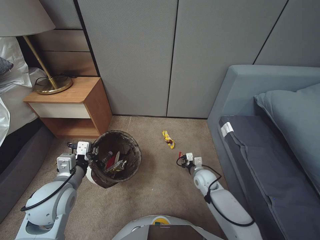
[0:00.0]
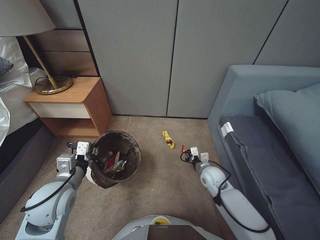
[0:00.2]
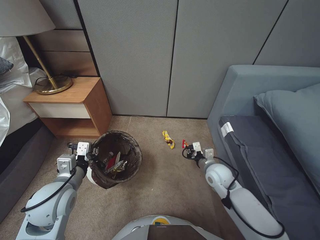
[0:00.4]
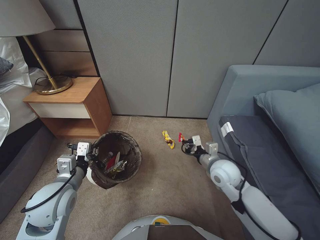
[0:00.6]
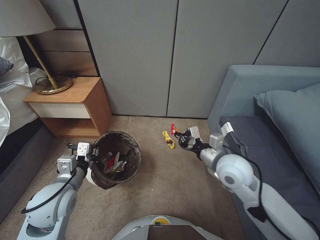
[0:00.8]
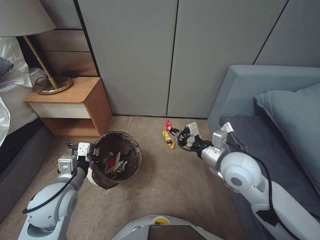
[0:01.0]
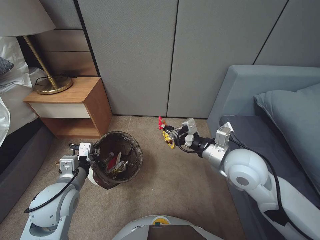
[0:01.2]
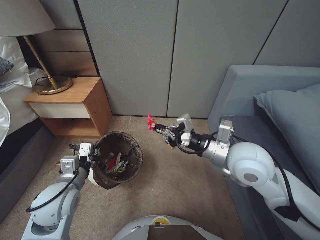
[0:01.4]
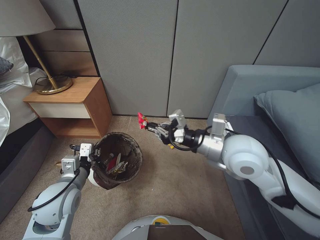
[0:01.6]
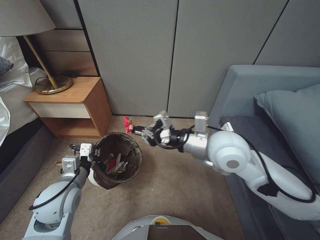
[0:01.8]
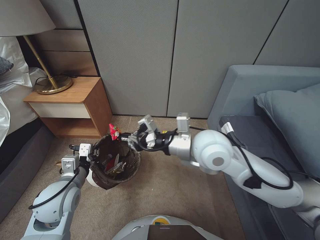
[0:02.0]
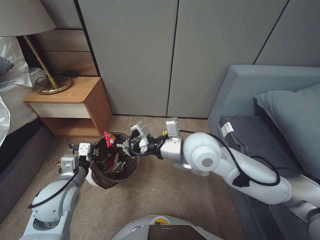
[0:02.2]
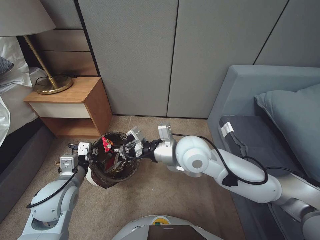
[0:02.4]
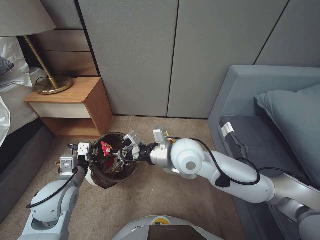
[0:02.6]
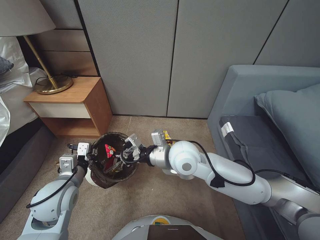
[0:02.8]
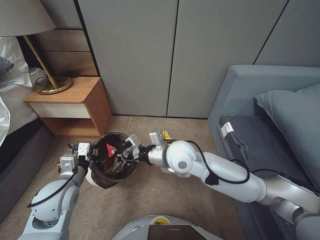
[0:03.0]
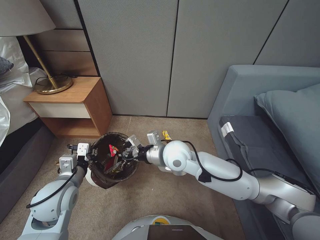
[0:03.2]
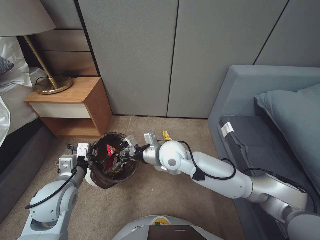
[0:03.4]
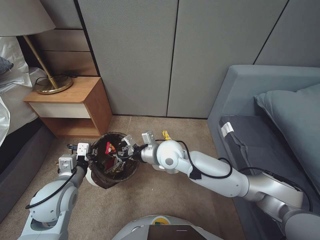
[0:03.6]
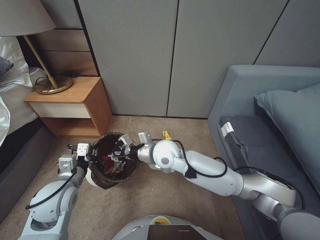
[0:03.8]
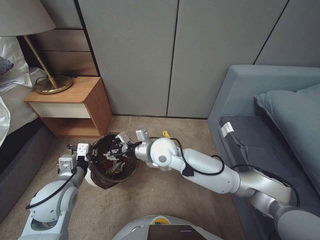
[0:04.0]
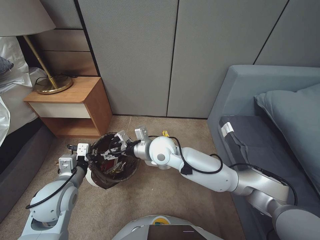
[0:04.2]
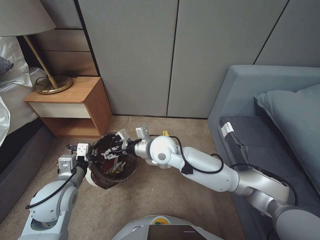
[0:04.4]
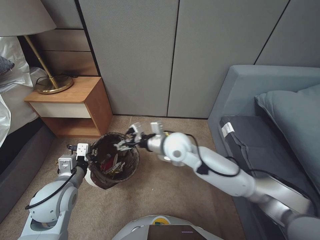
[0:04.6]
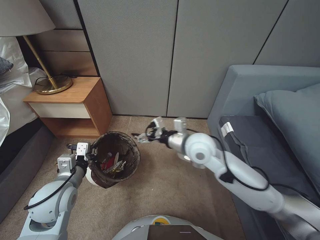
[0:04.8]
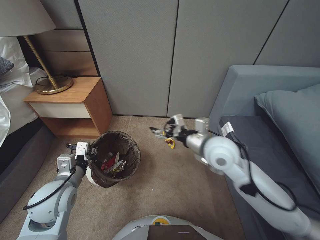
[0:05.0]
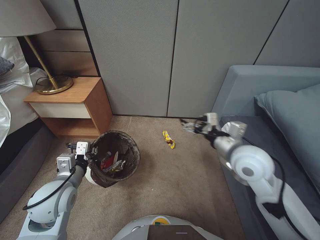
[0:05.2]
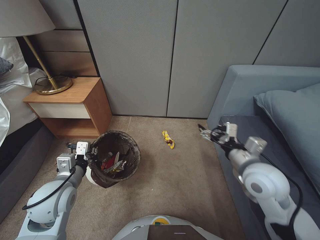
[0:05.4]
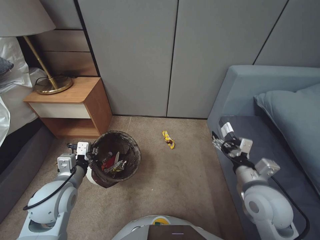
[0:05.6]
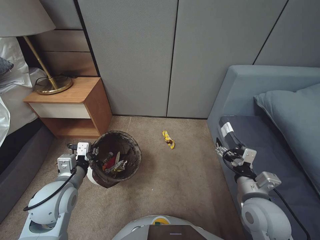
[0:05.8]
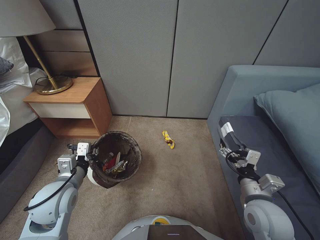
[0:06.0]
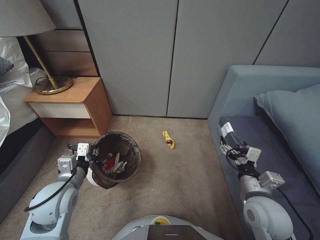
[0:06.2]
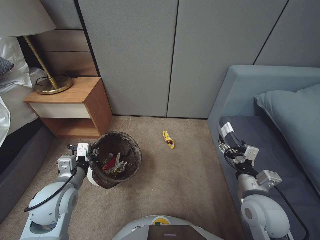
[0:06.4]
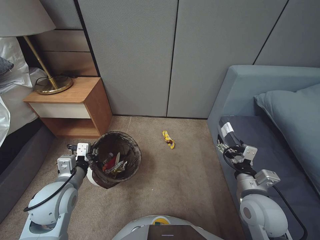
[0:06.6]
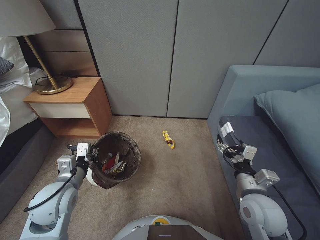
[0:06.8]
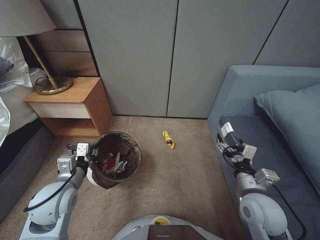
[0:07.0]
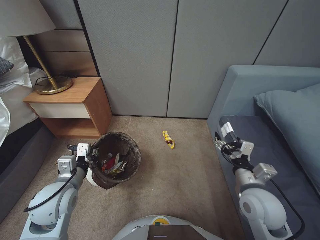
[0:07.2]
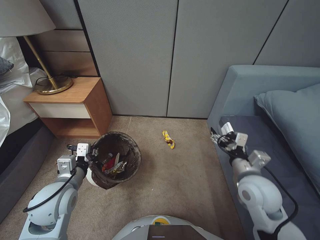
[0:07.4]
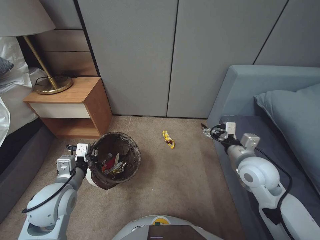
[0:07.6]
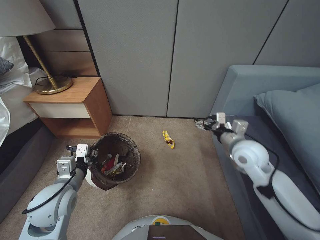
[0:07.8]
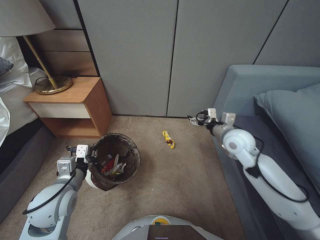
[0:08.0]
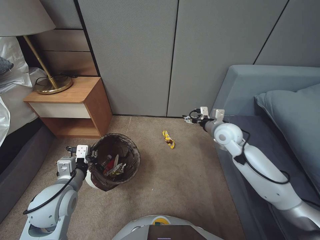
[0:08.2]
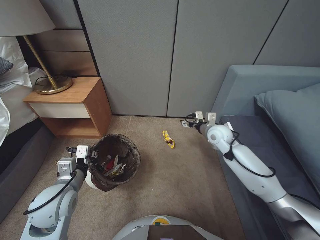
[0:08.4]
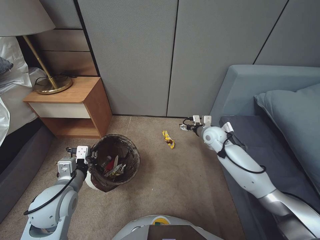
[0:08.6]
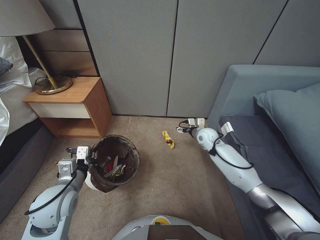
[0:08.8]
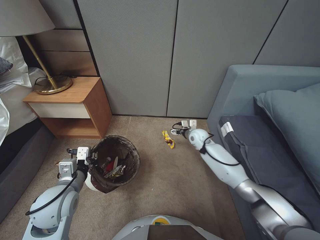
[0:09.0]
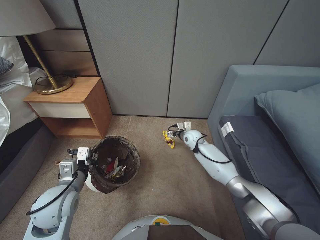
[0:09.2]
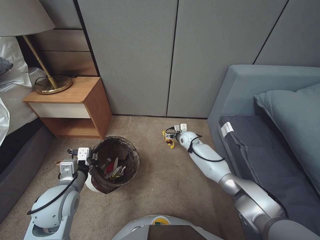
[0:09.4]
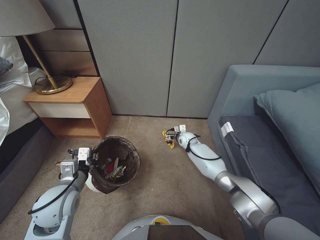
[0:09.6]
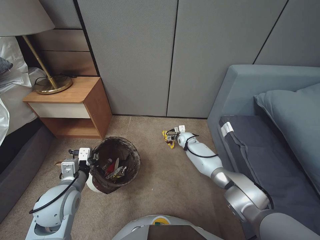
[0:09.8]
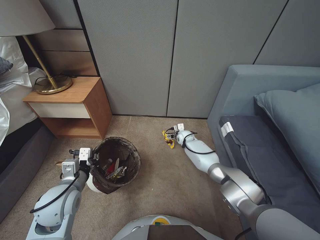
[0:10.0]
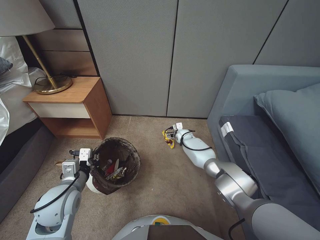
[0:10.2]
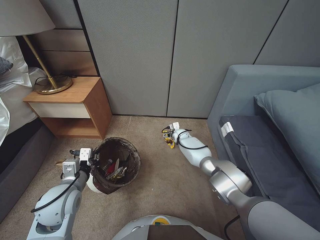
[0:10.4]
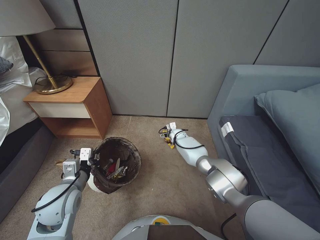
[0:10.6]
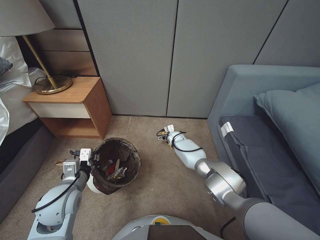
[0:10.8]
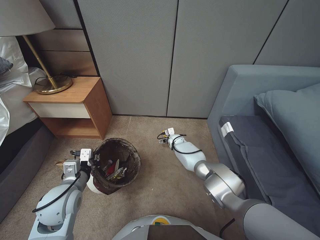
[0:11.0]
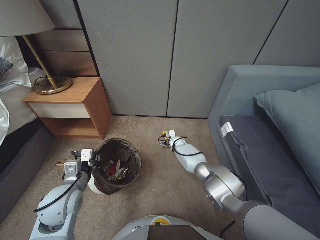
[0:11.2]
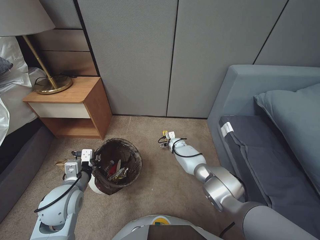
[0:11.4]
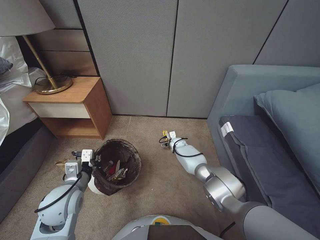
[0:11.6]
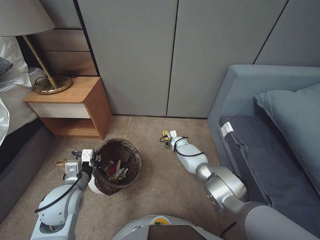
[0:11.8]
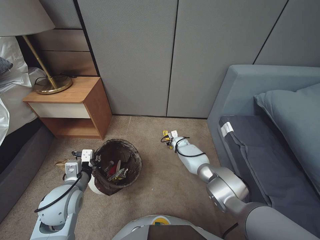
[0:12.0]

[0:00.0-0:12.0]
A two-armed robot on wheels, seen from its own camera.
Task of the whole recording: Pick up the trash bin, then pick up the garbage from the floor and place it into the trash bin.
0:00.0 to 0:01.6: The right gripper is displaced upward by roughly 35 cm.
0:01.6 to 0:03.0: The right gripper travels to the left and downward by some 15 cm.
0:03.0 to 0:04.4: The right gripper shifts roughly 5 cm to the left, and opens its fingers.
0:04.4 to 0:06.0: The right gripper travels to the right and backward by about 35 cm.
0:06.0 to 0:07.6: The right gripper shifts approximately 10 cm forward.
0:07.6 to 0:09.0: The right gripper is displaced forward and downward by about 25 cm.
0:09.0 to 0:10.4: The right gripper travels downward, forward and to the left by some 15 cm.
0:10.4 to 0:12.0: The right gripper shifts by some 5 cm, and closes.

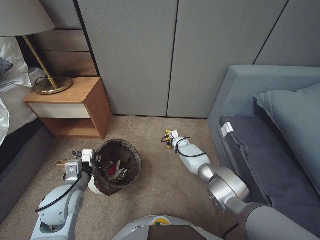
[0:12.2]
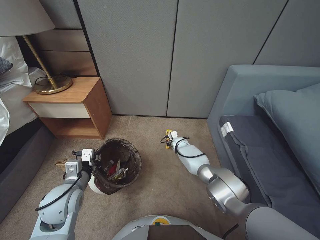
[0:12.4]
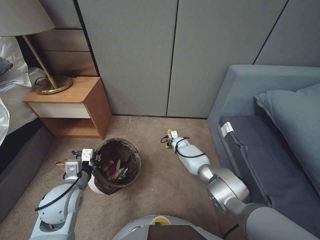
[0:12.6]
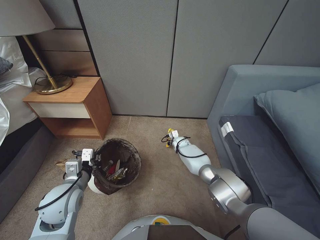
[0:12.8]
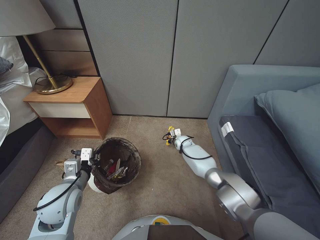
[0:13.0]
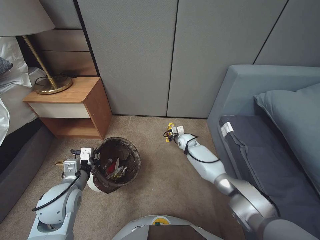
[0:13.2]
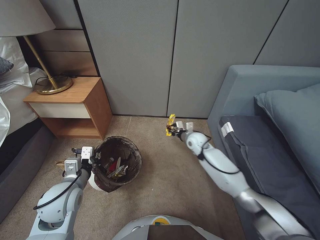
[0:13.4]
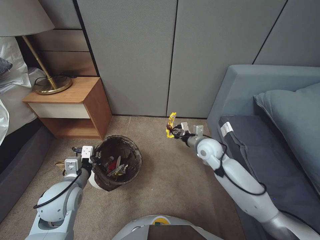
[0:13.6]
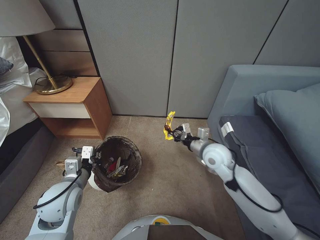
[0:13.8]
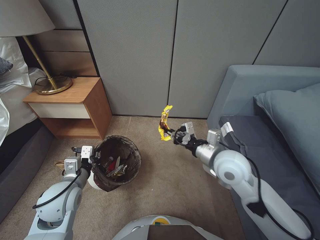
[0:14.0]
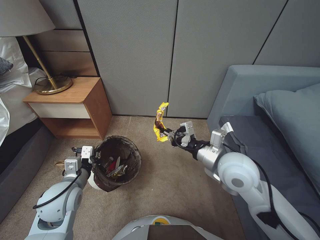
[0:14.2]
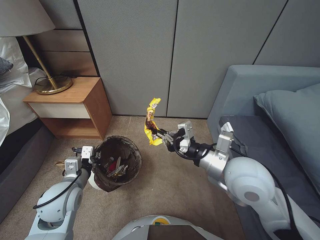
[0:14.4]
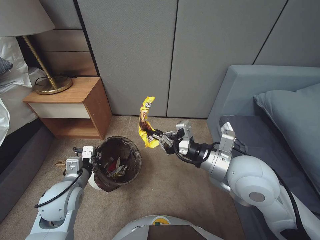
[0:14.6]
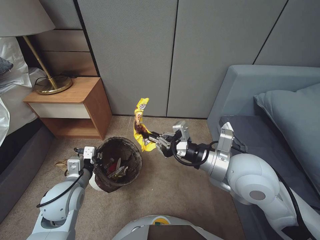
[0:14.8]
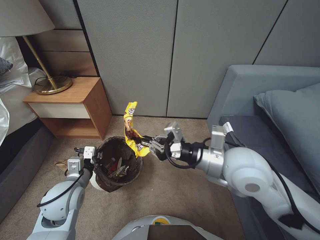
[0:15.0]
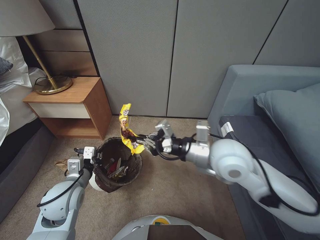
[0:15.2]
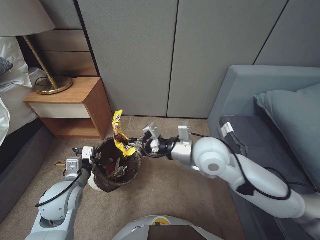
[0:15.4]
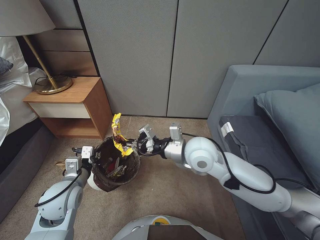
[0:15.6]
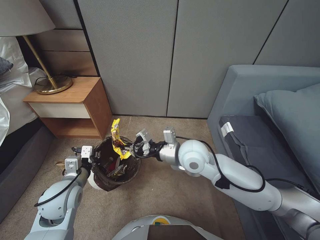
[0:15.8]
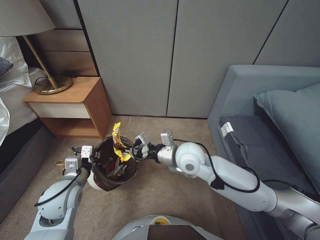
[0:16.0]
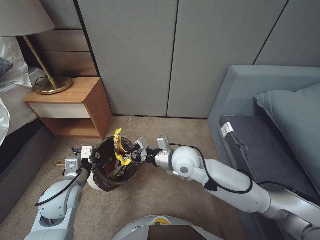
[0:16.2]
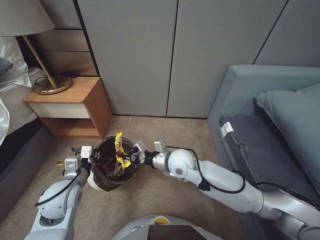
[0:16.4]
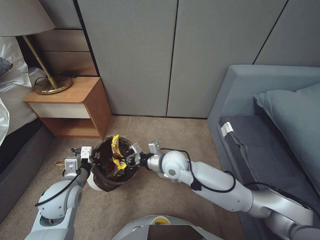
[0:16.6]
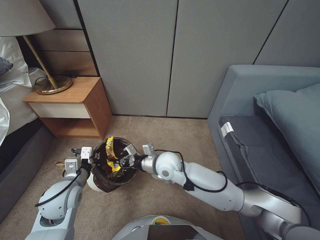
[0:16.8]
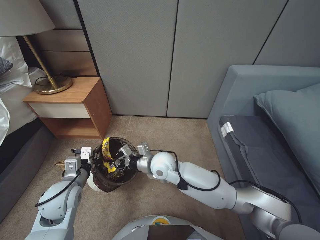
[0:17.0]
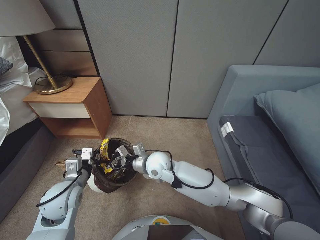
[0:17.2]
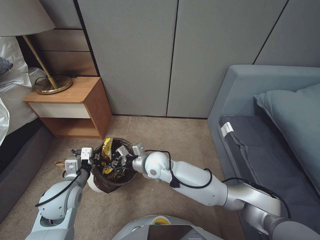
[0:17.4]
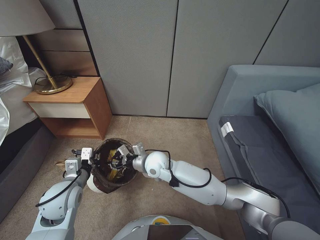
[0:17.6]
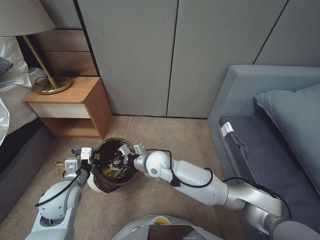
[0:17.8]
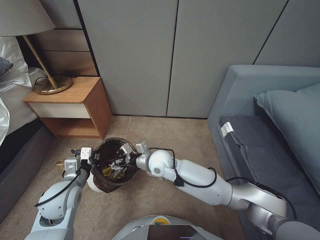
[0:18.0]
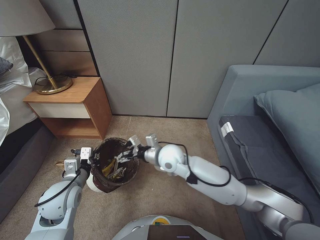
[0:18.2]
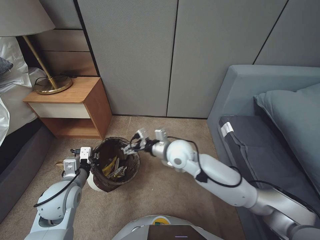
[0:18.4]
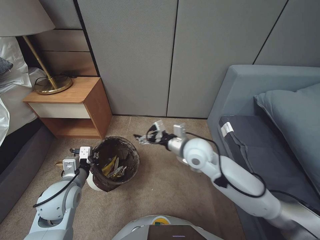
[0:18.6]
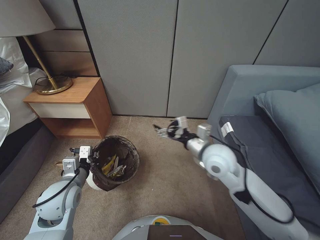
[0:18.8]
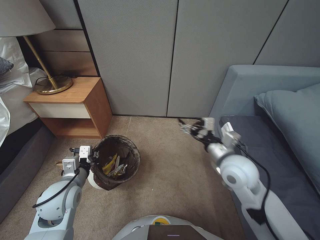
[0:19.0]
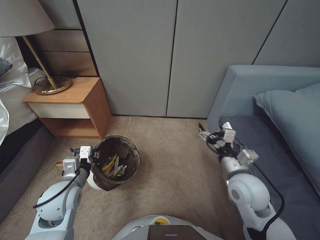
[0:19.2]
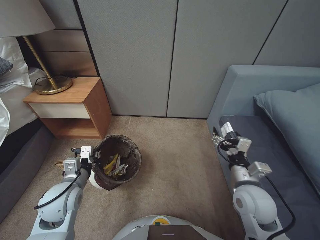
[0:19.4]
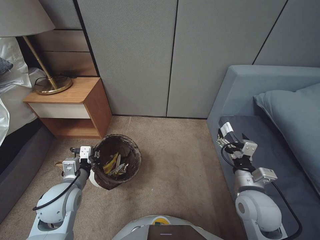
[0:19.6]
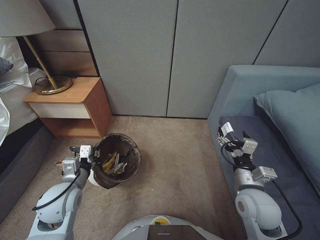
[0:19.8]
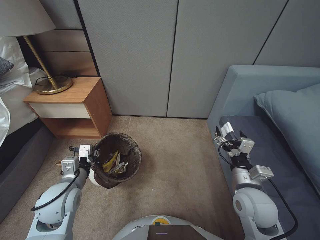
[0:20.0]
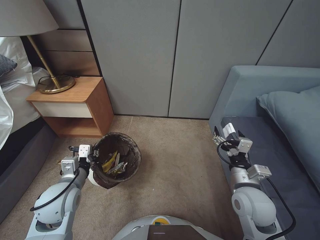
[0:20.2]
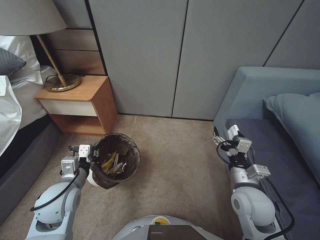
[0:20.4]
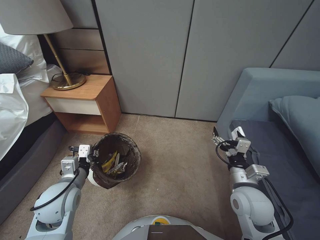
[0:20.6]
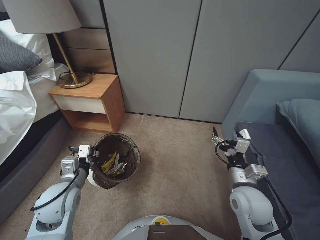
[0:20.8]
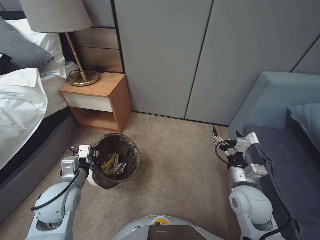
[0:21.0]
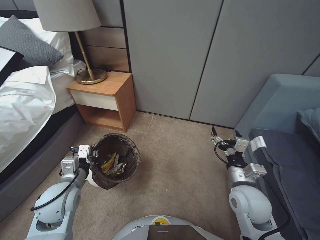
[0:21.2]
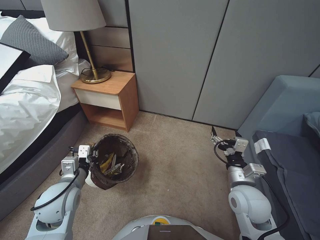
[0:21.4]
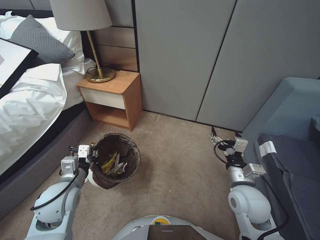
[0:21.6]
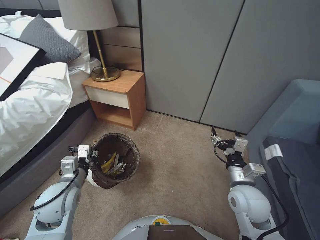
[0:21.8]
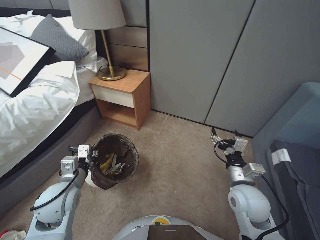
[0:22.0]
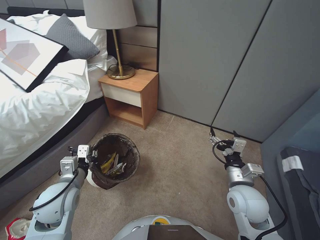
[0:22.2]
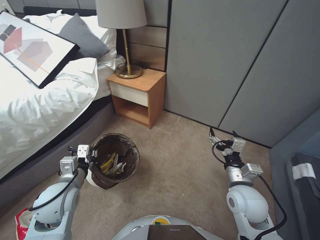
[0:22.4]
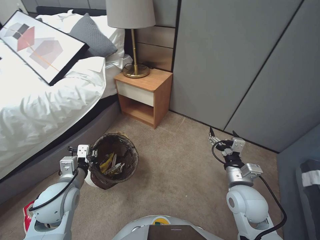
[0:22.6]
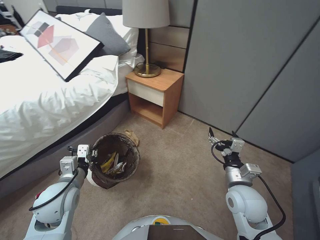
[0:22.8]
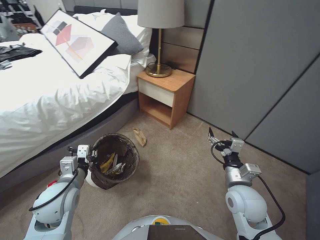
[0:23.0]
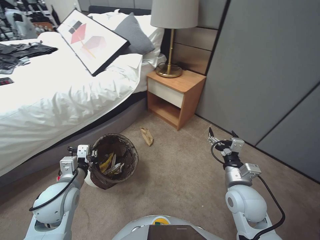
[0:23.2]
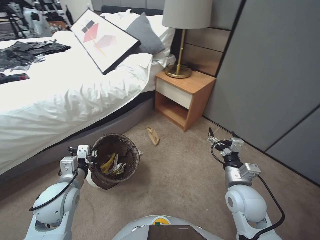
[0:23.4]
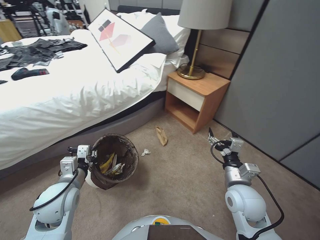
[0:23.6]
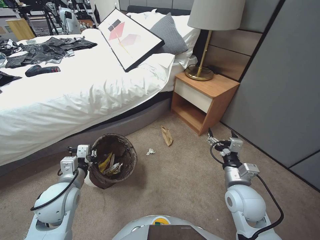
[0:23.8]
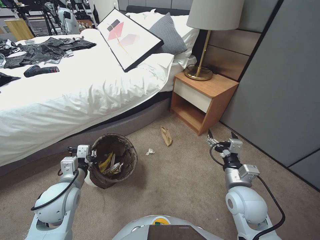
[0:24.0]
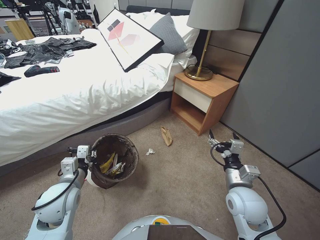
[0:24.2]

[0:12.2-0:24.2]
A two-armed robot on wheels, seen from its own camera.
Task of the whole recording: Pick up the trash bin, then pick up the garbage from the floor and place it into the trash bin.
0:12.2 to 0:13.8: The right gripper travels upward and backward by about 30 cm.
0:13.8 to 0:15.2: The right gripper is displaced upward and backward by about 20 cm.
0:15.2 to 0:16.6: The right gripper goes roughly 20 cm downward, to the left and forward.
0:16.6 to 0:18.2: The right gripper opens.
0:18.2 to 0:19.8: The right gripper heads to the right and backward, covering approximately 30 cm.
